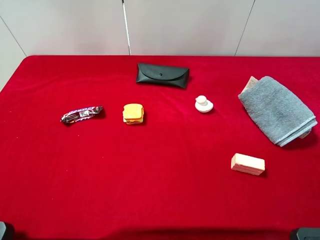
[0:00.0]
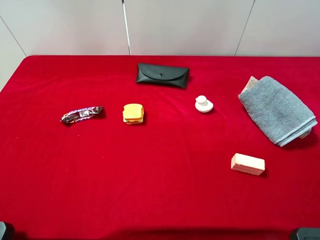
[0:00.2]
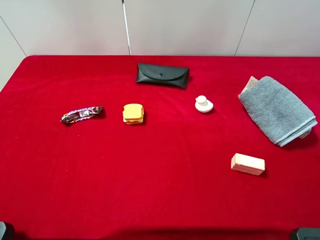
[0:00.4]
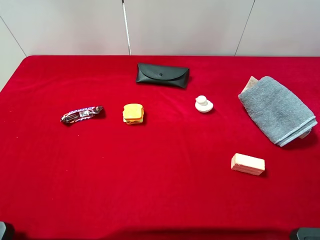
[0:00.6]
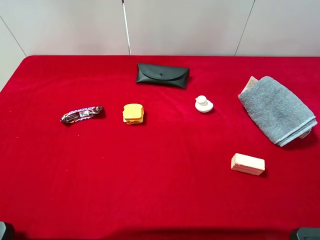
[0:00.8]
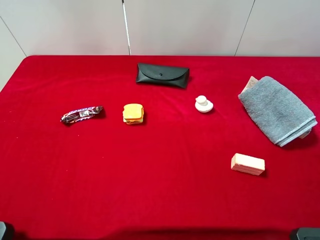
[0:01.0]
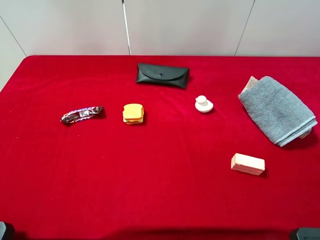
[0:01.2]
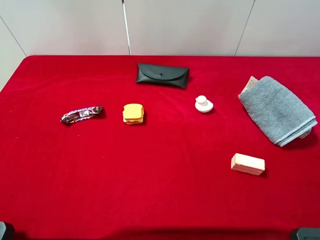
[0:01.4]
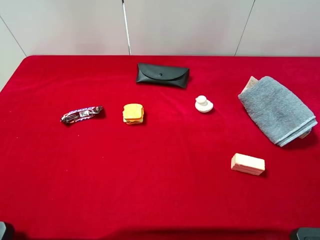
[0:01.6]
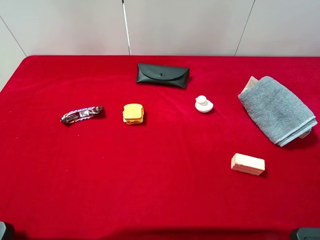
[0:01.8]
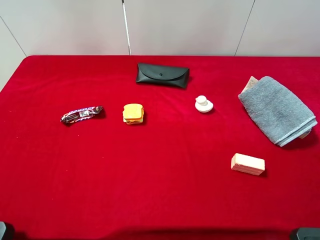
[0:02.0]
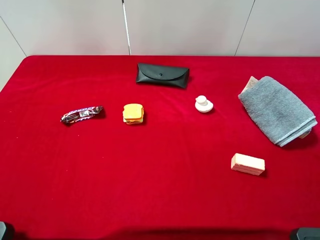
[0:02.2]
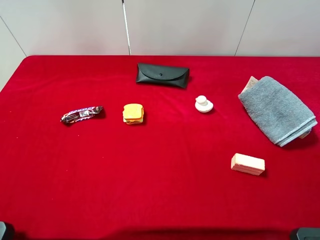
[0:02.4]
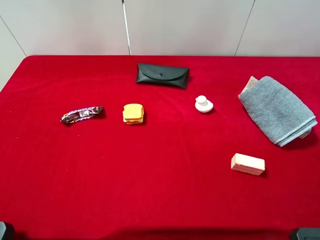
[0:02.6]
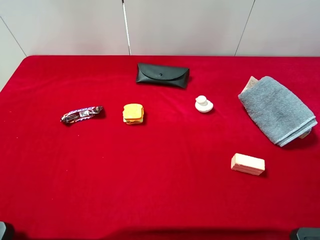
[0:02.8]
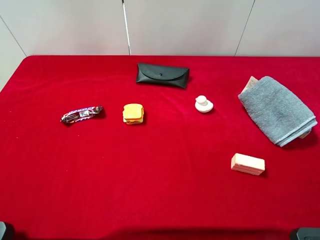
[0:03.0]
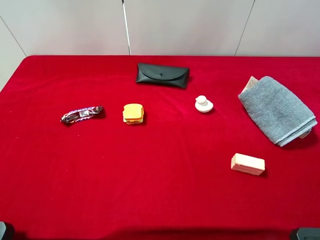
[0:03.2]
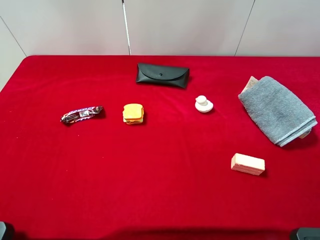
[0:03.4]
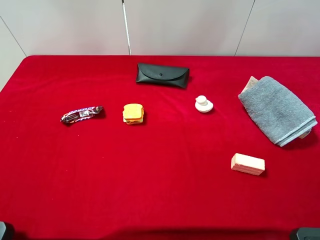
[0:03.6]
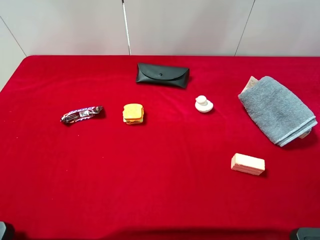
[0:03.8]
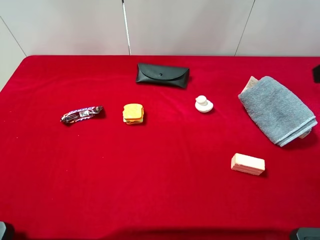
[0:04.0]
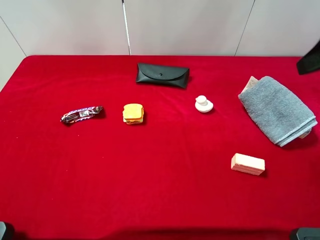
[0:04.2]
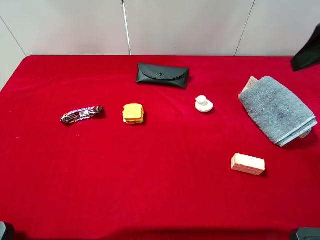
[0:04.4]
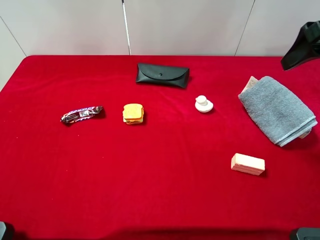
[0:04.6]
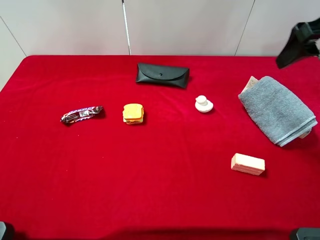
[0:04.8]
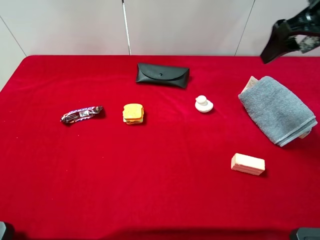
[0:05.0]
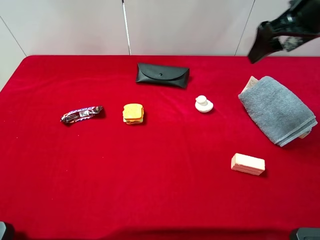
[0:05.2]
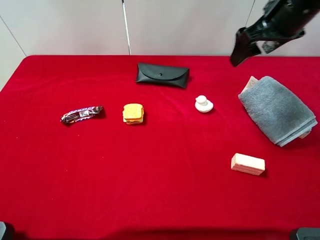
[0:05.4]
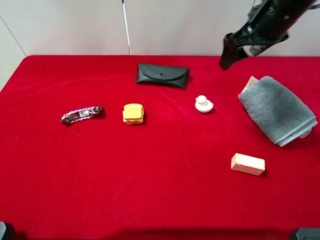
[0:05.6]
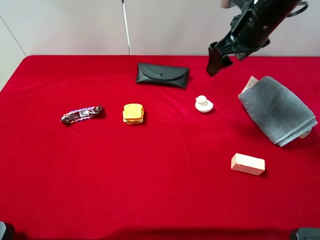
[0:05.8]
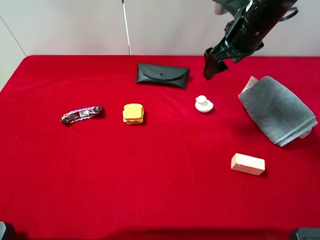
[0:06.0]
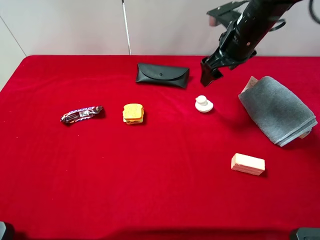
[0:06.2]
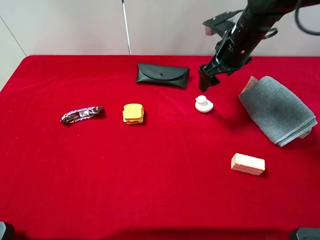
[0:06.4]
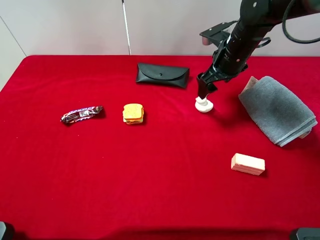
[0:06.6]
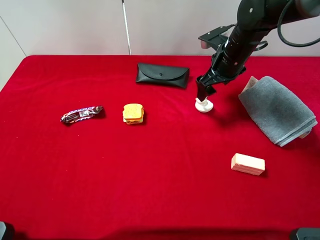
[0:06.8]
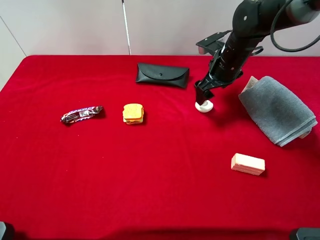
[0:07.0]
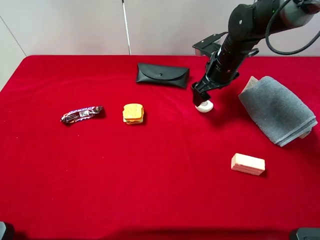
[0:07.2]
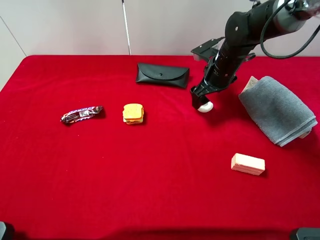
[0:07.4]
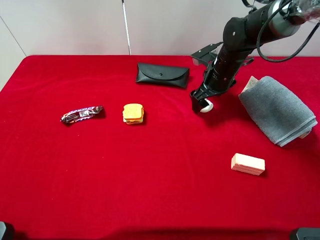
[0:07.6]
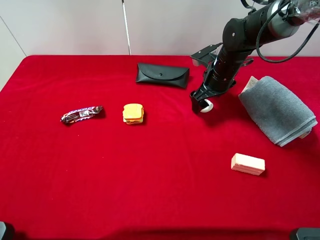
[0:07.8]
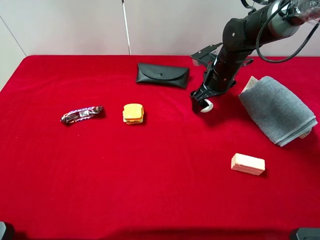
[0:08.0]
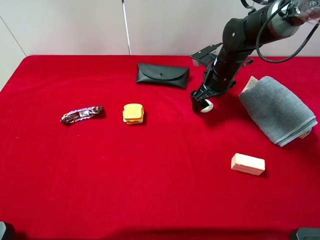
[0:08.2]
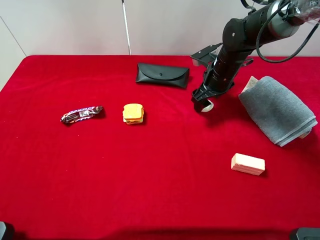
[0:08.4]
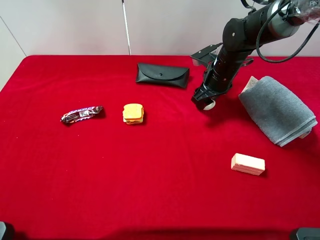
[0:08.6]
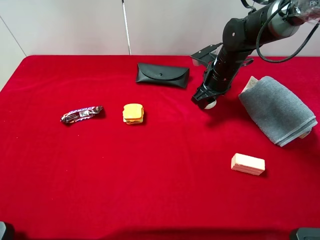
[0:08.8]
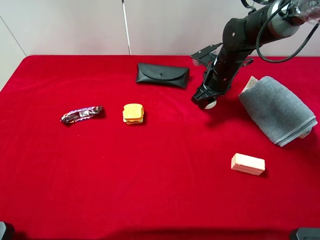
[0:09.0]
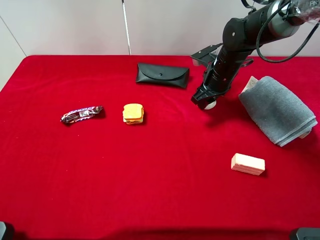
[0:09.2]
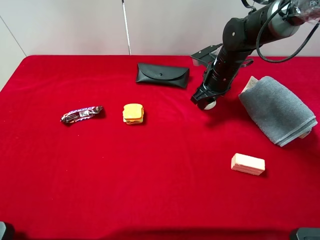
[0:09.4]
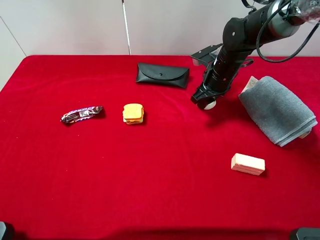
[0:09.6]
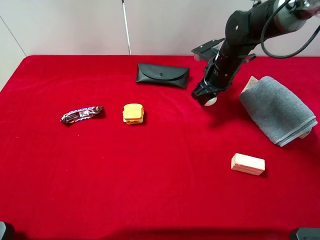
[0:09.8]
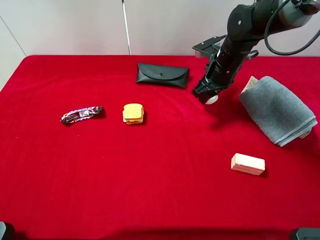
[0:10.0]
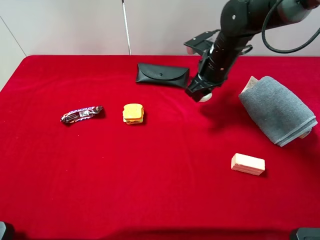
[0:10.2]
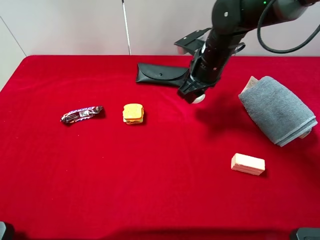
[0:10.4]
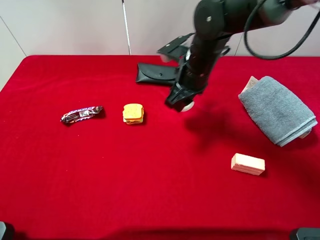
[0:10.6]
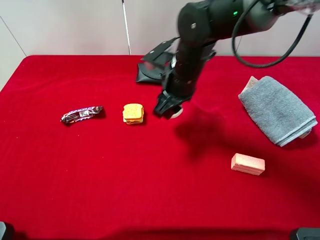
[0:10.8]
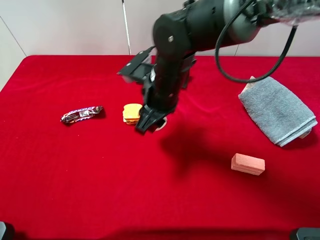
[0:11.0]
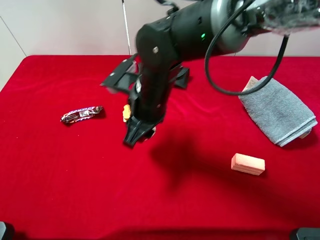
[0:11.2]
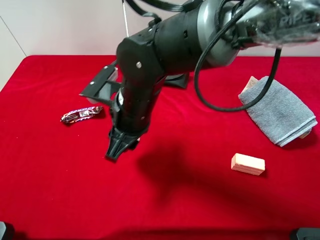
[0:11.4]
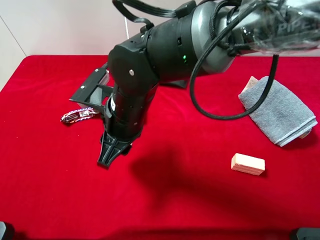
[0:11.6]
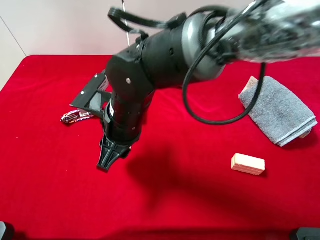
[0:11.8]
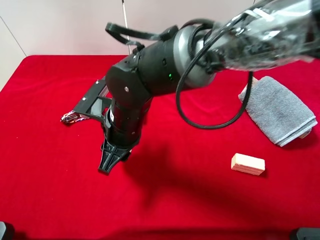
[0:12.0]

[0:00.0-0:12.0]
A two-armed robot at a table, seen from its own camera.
Task of the whole recording: the gripper move the object.
Step, 0.0 to 9.0 s: Grasp the white duck with the right gripper.
0.0 to 1.6 s: Both grippers stay put.
3.0 to 4.4 s: The right gripper shifts roughly 20 cm forward.
4.4 to 6.0 s: The right gripper heads to the left, forward and downward, covering some 20 cm.
6.0 to 7.6 s: The right gripper goes roughly 10 cm downward.
7.6 to 9.0 s: The right gripper closes its fingers.
9.0 to 10.4 s: The right gripper moves upward and to the left, roughly 5 cm.
10.4 to 12.0 s: The right gripper moves to the left and backward, roughly 20 cm.

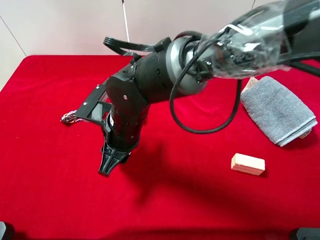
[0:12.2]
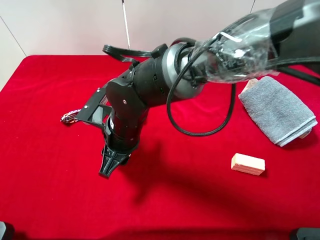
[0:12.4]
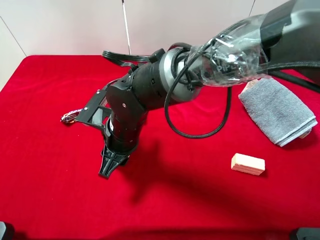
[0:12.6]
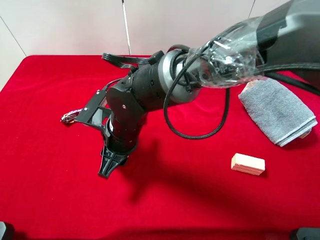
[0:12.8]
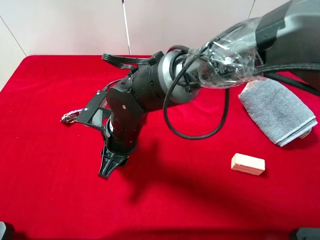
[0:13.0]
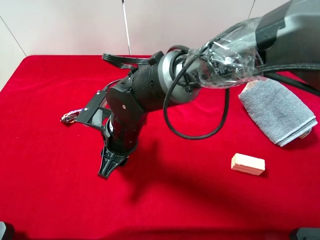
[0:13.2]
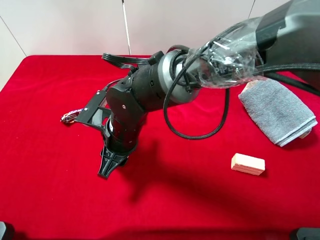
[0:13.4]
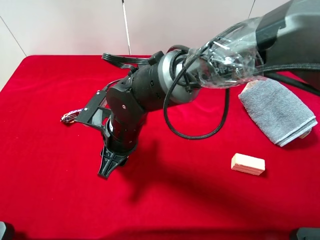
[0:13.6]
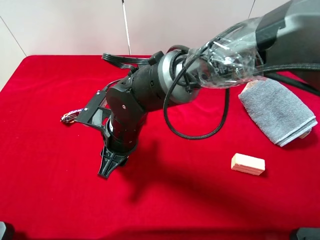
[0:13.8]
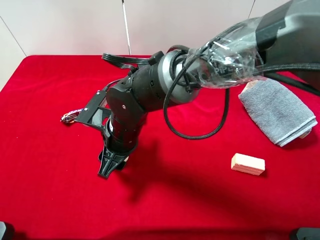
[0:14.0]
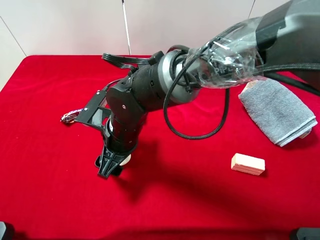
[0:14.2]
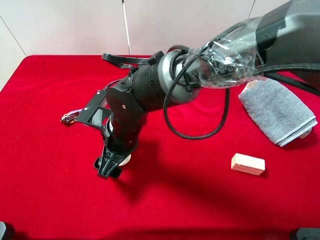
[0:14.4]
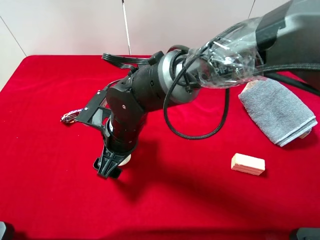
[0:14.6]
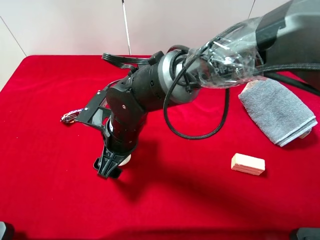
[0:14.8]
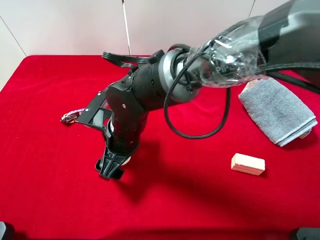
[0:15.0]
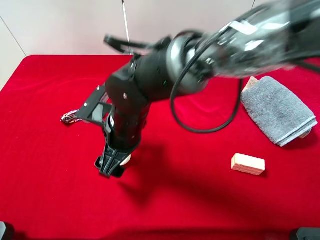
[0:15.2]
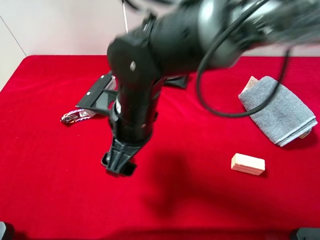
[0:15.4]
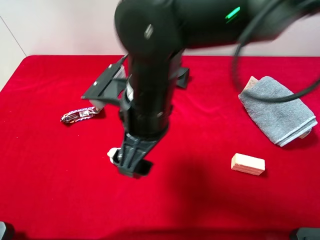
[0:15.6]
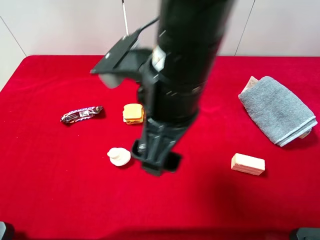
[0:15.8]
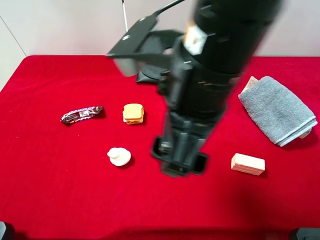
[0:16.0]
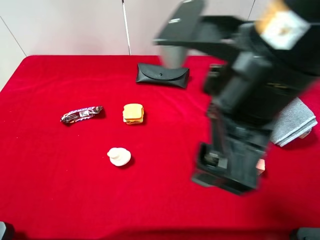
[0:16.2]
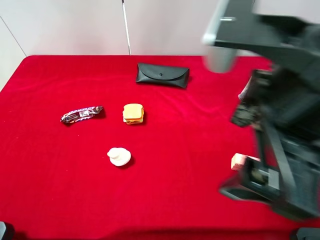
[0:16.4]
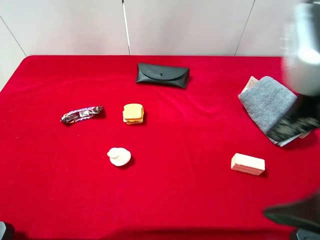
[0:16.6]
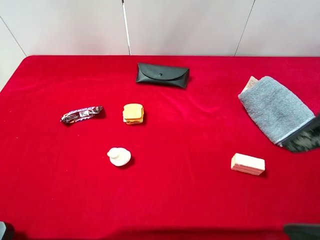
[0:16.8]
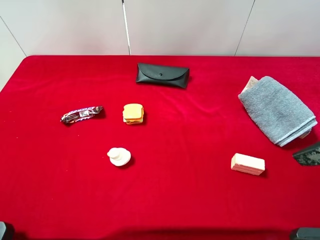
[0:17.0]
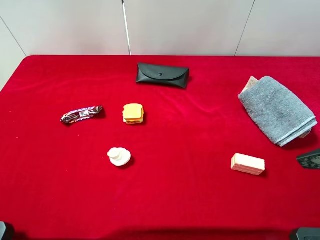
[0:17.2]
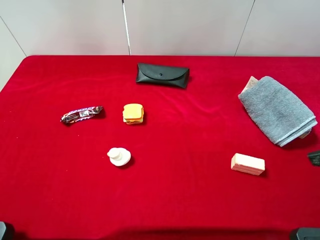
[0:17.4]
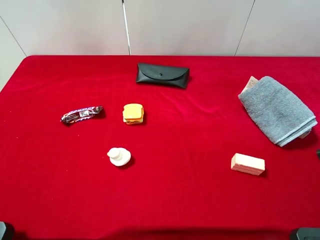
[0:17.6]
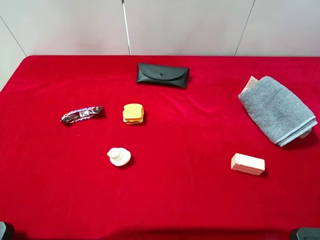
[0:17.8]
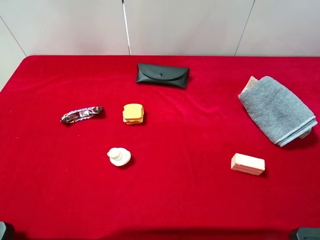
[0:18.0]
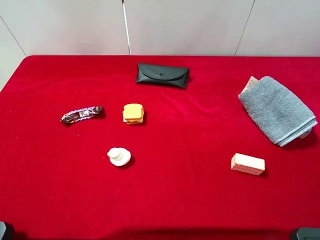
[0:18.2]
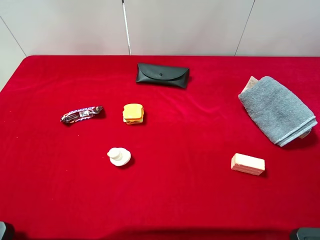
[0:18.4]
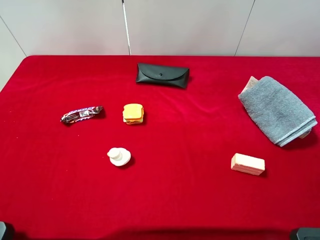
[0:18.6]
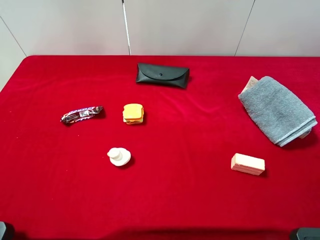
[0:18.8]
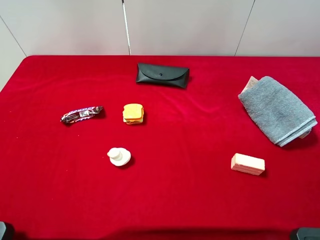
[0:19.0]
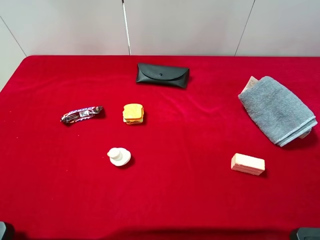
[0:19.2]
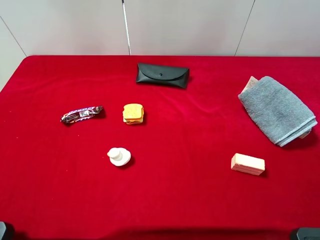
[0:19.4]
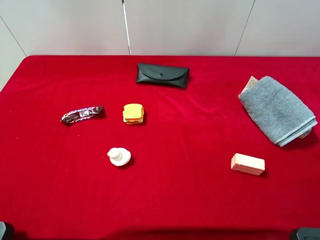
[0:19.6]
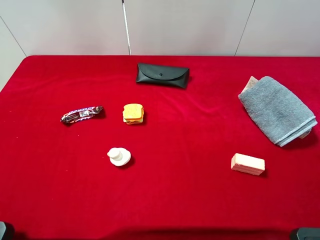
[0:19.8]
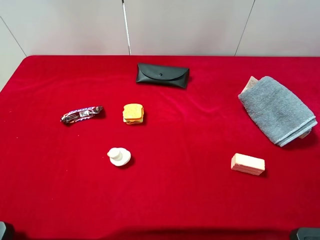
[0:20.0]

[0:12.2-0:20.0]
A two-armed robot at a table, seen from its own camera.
Task of the whole recording: the gripper move the object.
Step, 12.2 to 15.6 s: Place the white duck on the table with the right gripper.
12.2 to 13.8 s: There are only small adjustments of the grippers.
13.8 to 15.4 s: The right gripper travels upward by approximately 10 cm, and opens up.
15.4 to 16.8 s: The right gripper is displaced to the right, backward and upward by some 30 cm.
16.8 to 18.4 s: The right gripper shifts some 10 cm to the right.

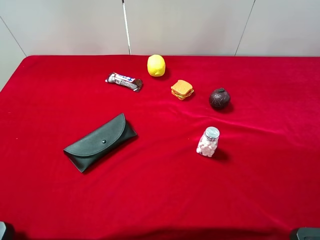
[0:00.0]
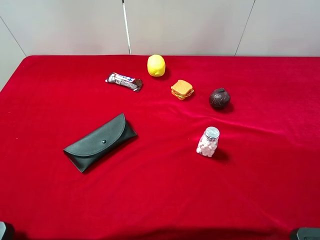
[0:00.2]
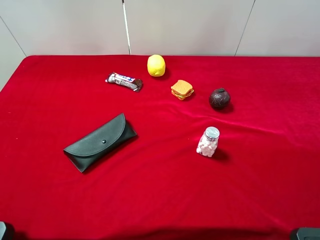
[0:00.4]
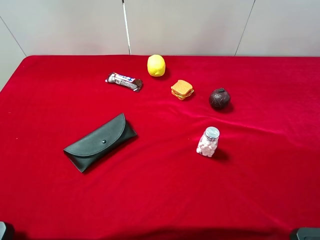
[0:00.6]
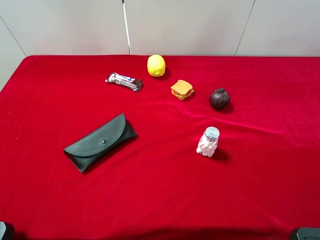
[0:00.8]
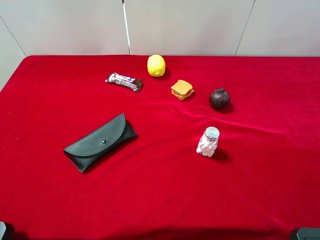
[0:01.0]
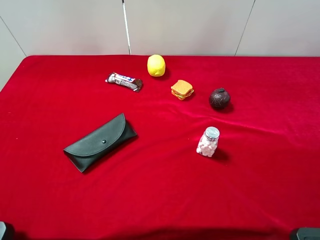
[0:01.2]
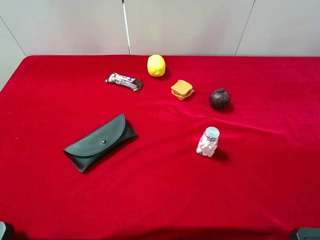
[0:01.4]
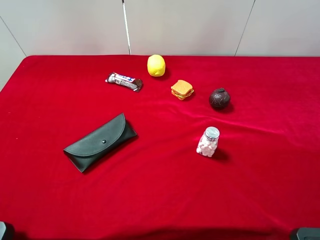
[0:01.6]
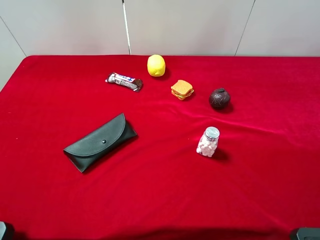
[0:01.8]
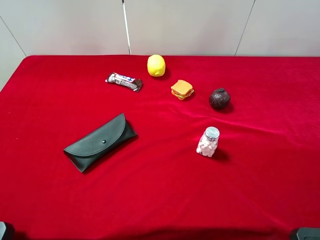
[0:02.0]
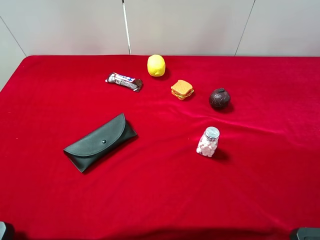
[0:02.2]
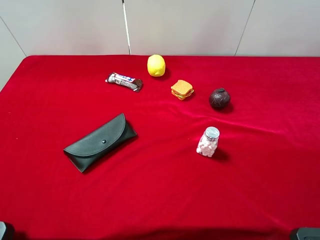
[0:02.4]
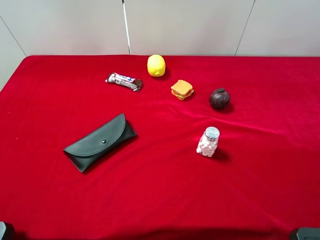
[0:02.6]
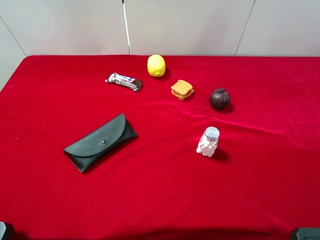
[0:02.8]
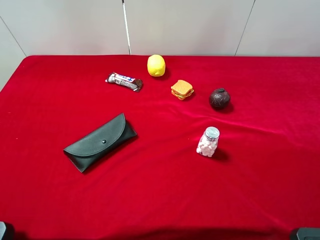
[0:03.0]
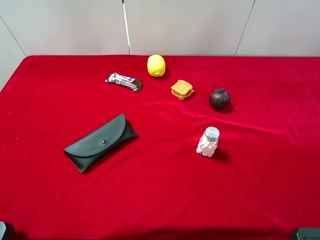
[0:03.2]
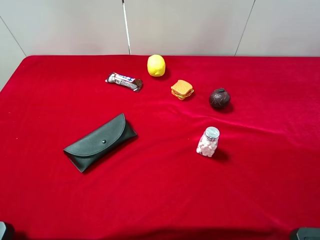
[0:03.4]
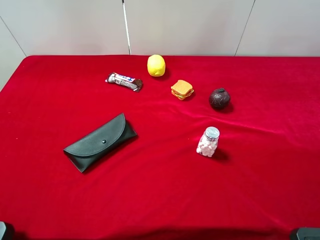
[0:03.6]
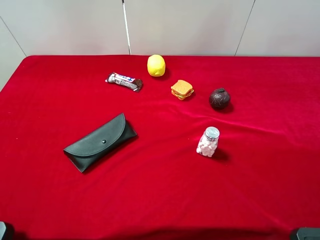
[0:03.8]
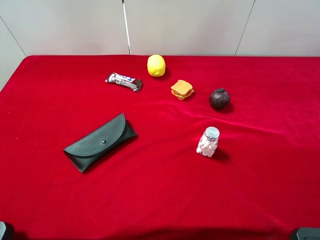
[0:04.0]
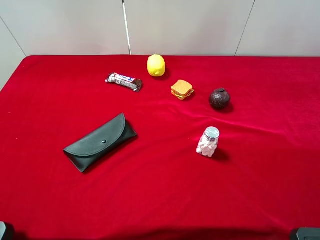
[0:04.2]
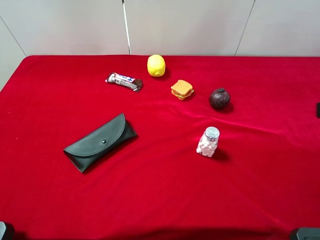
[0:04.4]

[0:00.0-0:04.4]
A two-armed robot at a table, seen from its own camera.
Task of the whole recording: the gripper move the object.
0.0 to 3.0 s: Both grippers stay put.
